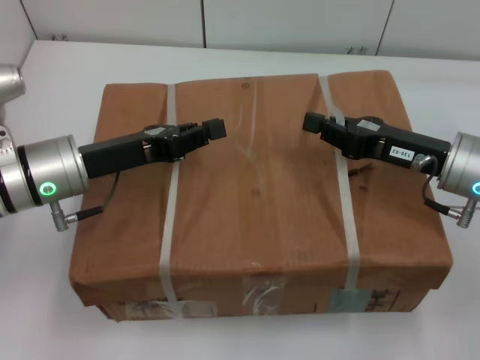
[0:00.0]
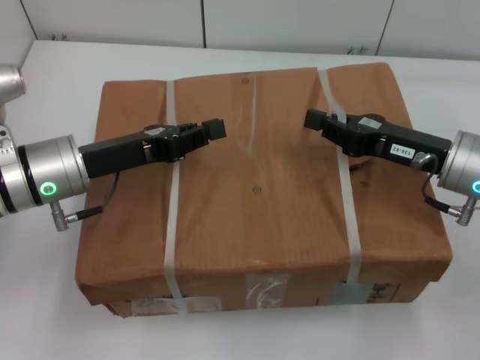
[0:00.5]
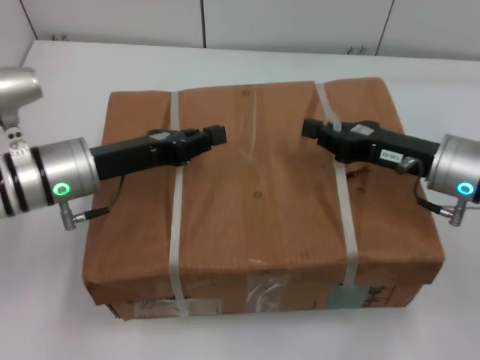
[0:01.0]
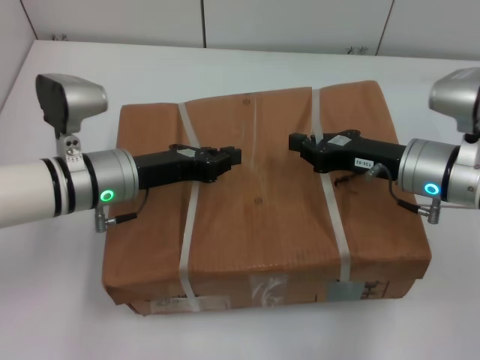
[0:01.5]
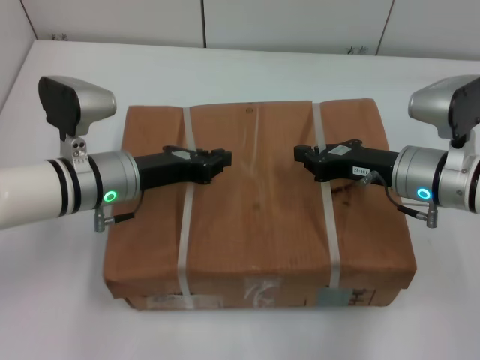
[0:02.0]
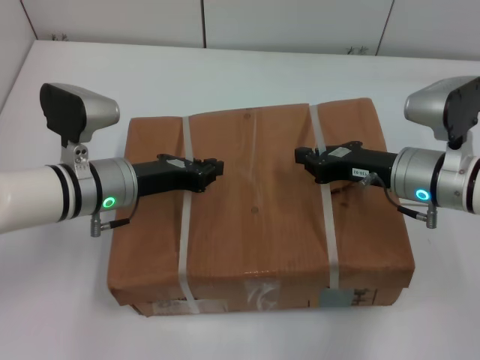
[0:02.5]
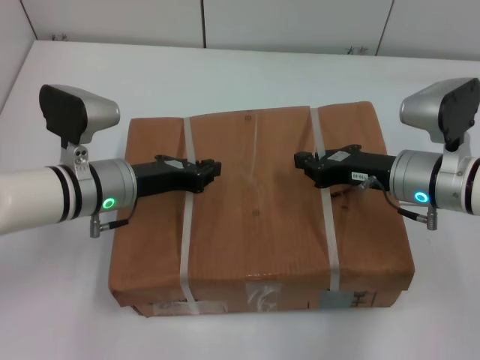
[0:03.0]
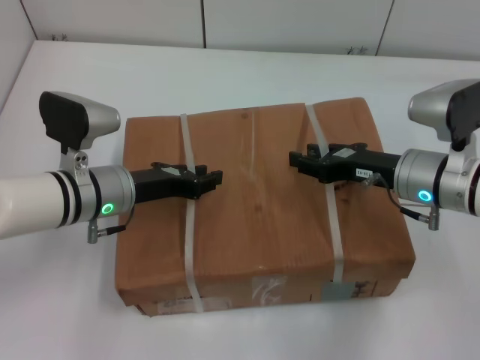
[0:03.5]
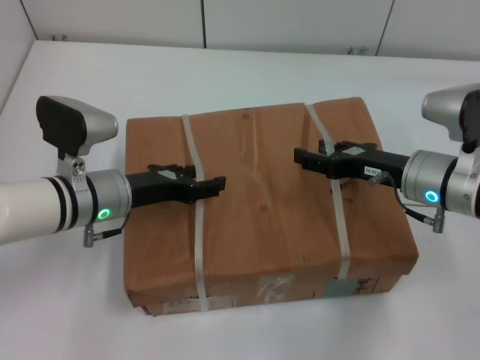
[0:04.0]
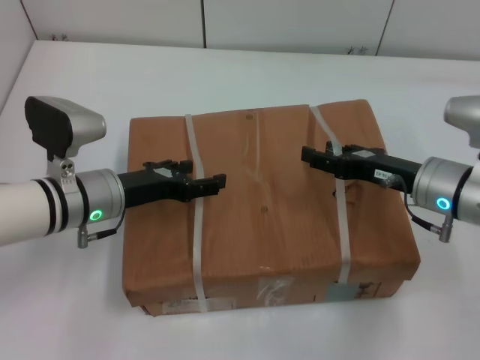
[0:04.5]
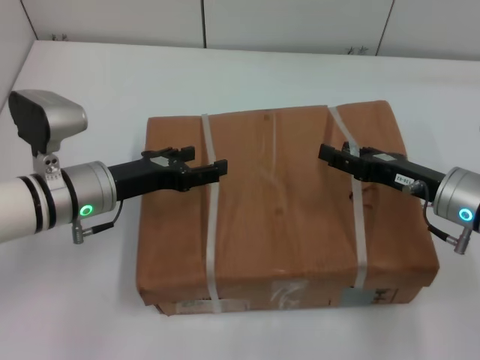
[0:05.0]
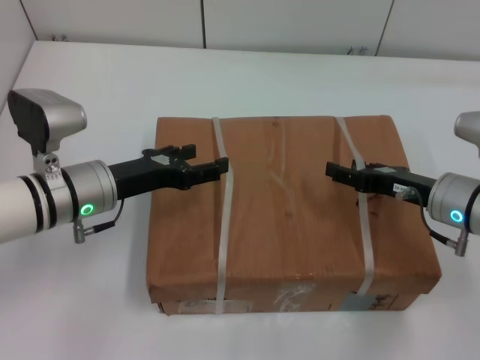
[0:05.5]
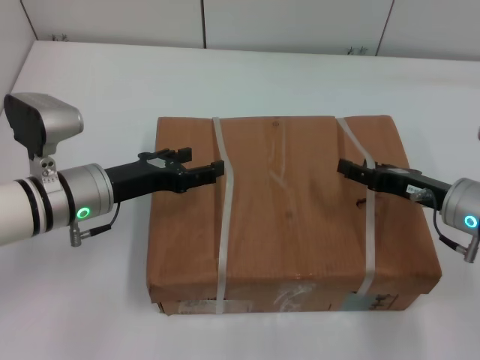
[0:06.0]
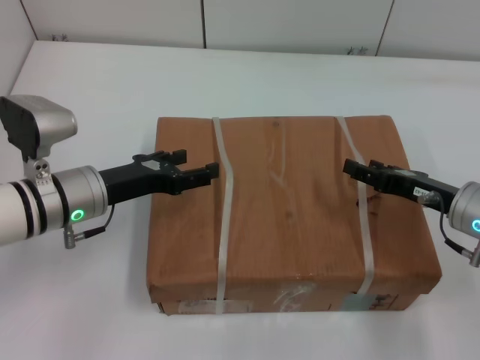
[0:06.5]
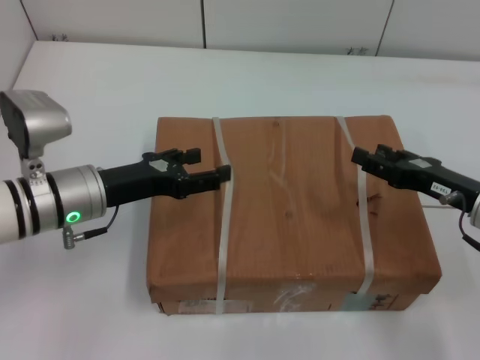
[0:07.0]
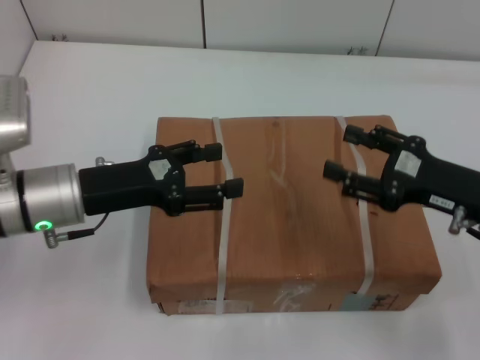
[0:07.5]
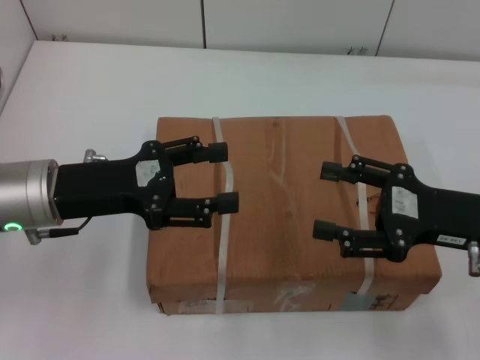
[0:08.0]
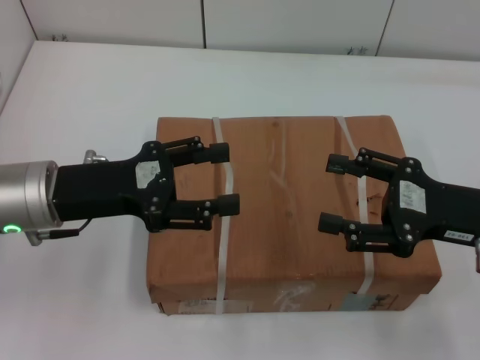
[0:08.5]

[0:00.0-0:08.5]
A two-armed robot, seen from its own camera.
Task of the whole recording: place the box on the table with both arms.
Step, 0:00.0 to 0:04.0: Place the box on the table with left gripper.
Step, 0:00.0 to 0:04.0: Place the box on the table with right gripper.
Step, 0:04.5 to 0:06.0: Loosen the box on the table with left gripper.
Step, 0:04.5 to 0:06.0: Loosen the box on the table with right gripper.
0:00.0 to 0:02.0: The right gripper shifts by about 5 cm. Meanwhile the left gripper ends up about 5 cm from where it was.
0:02.0 to 0:04.0: The left gripper opens up, while the right gripper opens up.
0:04.0 to 0:06.5: The right gripper is displaced to the right by approximately 5 cm. The left gripper opens up.
0:06.5 to 0:08.5: Both grippers move upward, some 5 cm.
